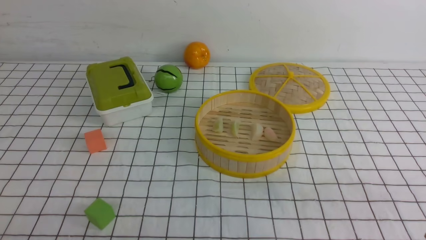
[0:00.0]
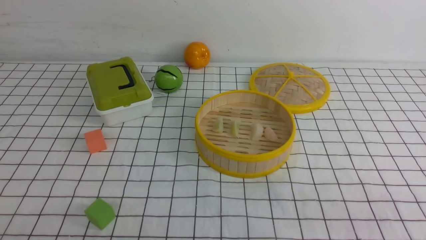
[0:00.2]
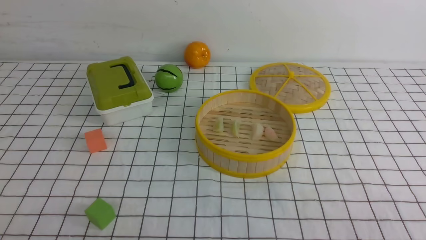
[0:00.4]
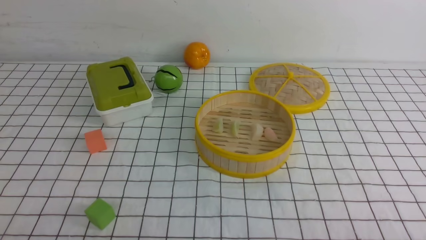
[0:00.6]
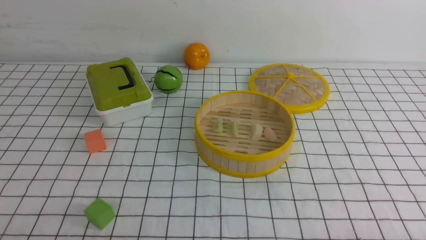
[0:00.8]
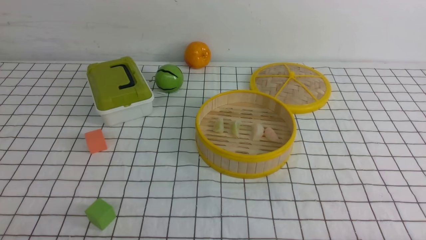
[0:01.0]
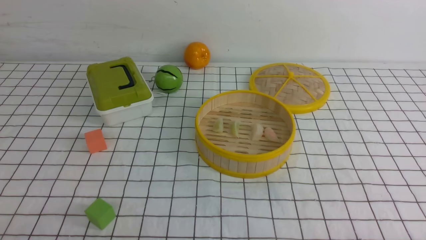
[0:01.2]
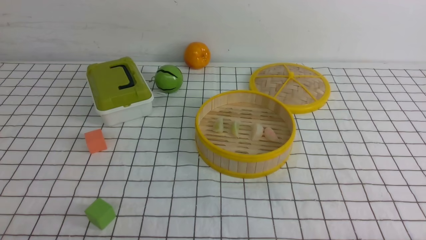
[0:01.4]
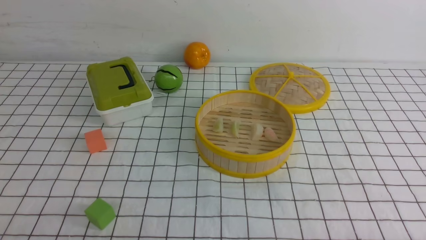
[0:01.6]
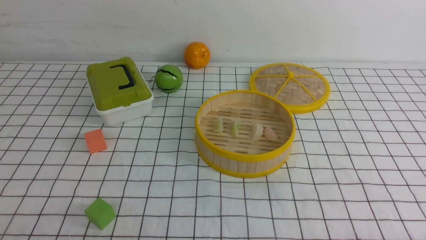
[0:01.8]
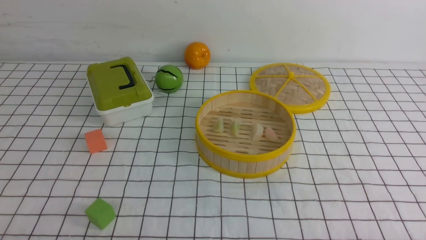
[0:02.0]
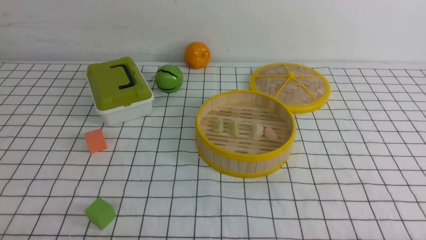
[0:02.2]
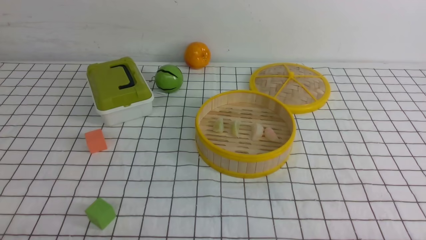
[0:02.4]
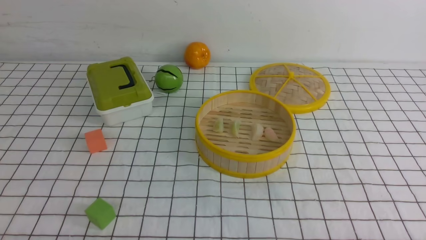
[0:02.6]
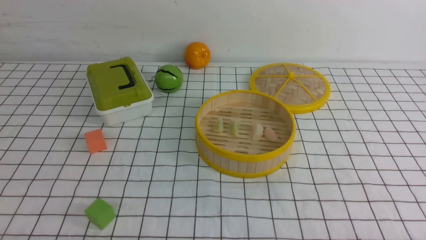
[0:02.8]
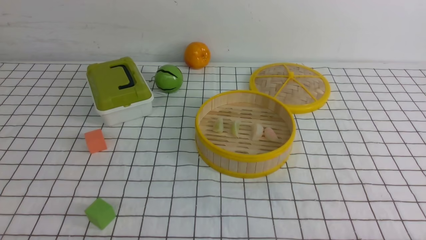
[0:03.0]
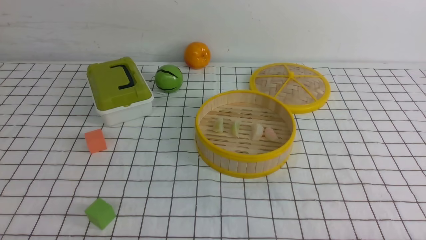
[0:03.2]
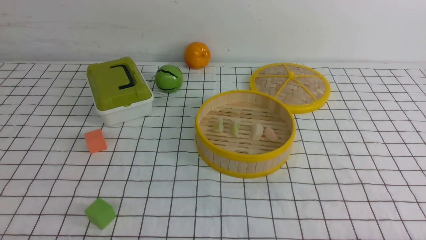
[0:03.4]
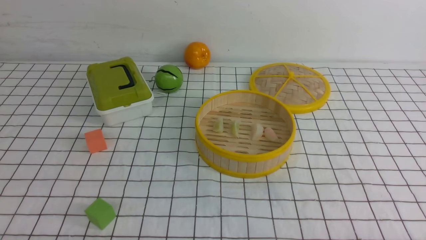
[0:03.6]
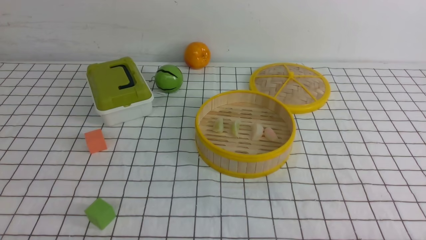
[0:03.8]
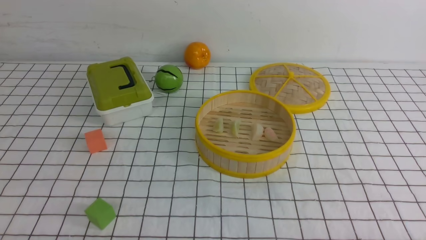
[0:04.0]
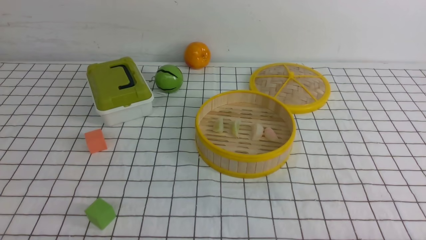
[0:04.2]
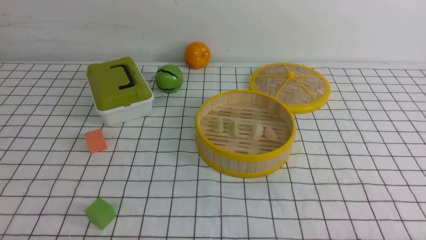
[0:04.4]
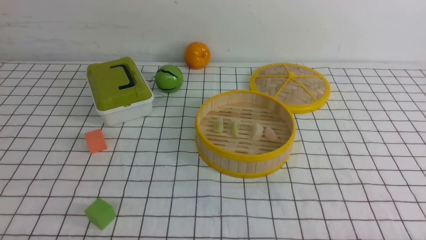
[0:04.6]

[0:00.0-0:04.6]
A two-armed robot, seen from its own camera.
Task of the whole recording: put the dumplings into the steamer on the table with the white tablecloth.
0:03.0 to 0:04.6: Both grippers stay put.
